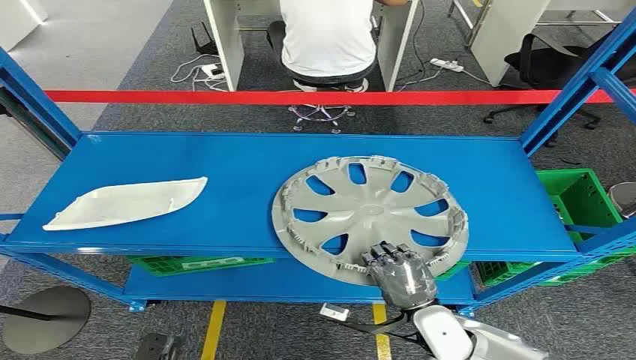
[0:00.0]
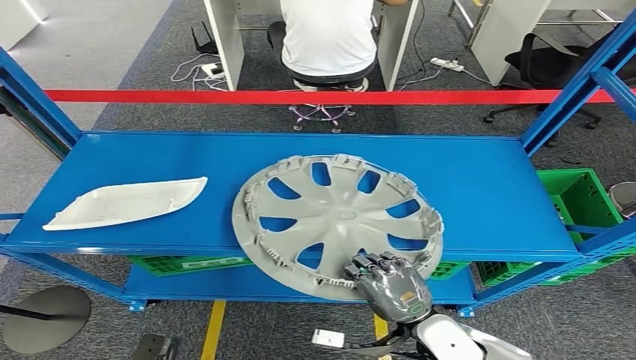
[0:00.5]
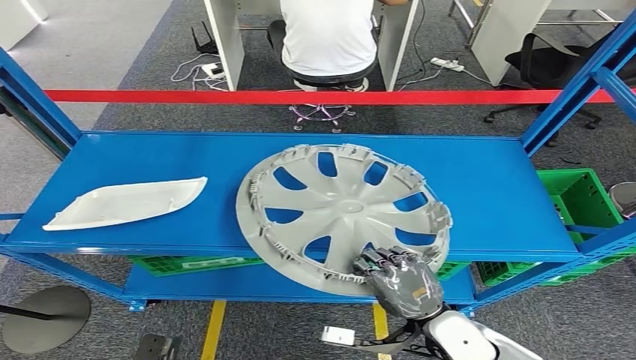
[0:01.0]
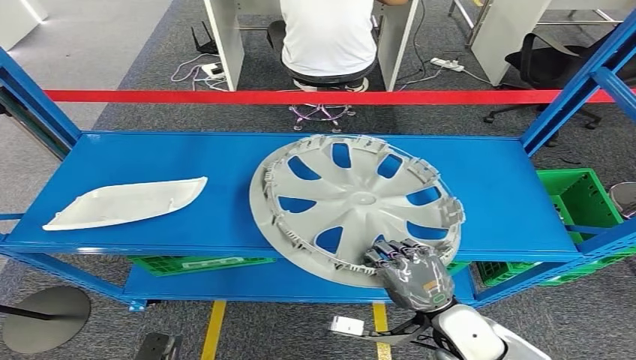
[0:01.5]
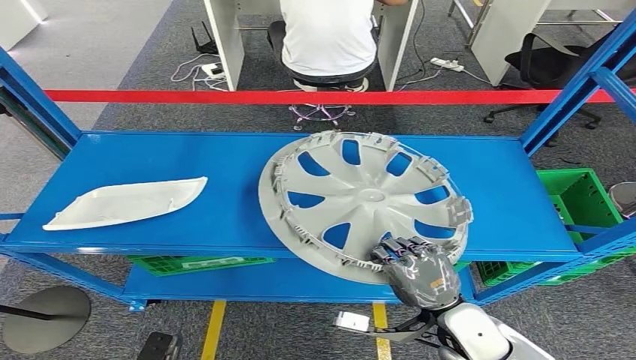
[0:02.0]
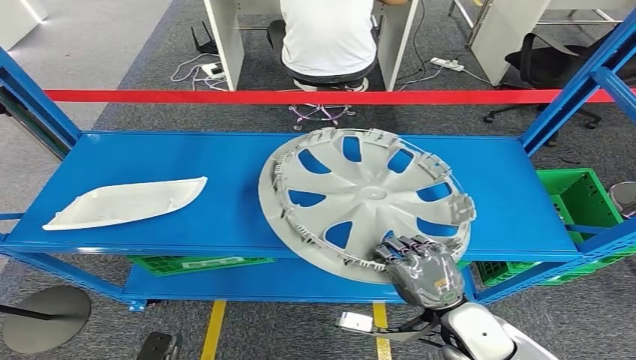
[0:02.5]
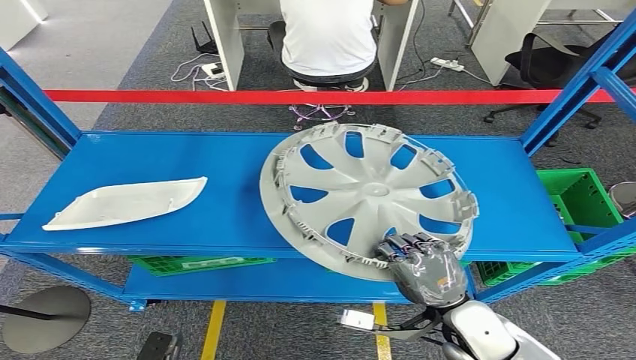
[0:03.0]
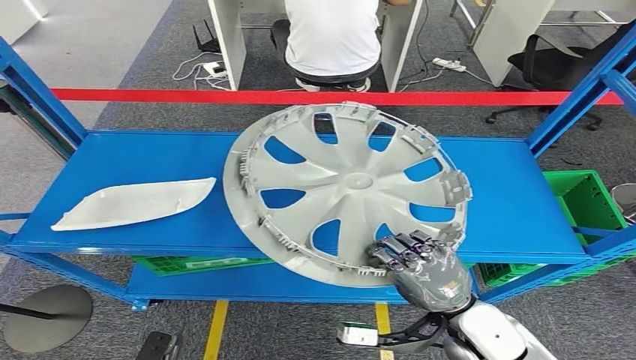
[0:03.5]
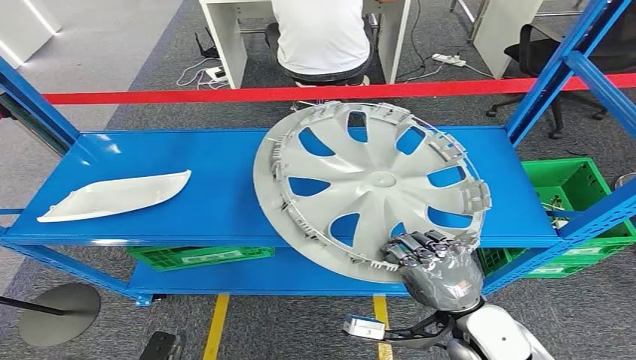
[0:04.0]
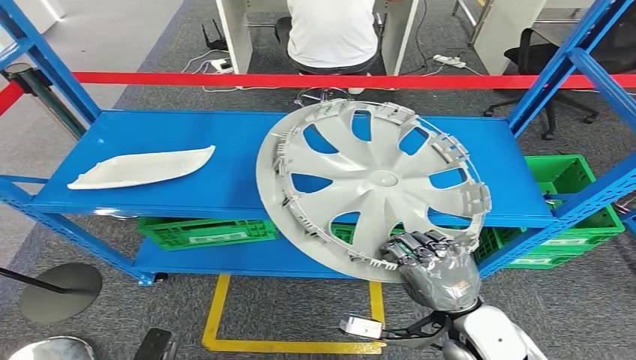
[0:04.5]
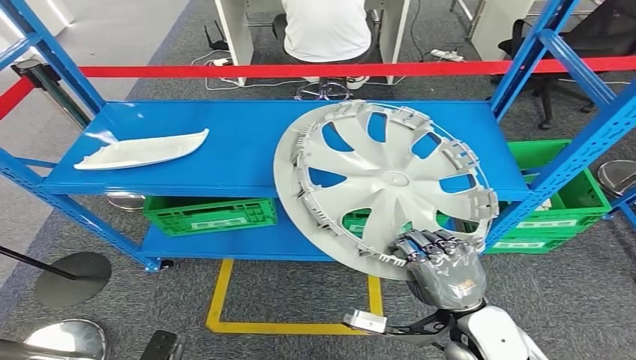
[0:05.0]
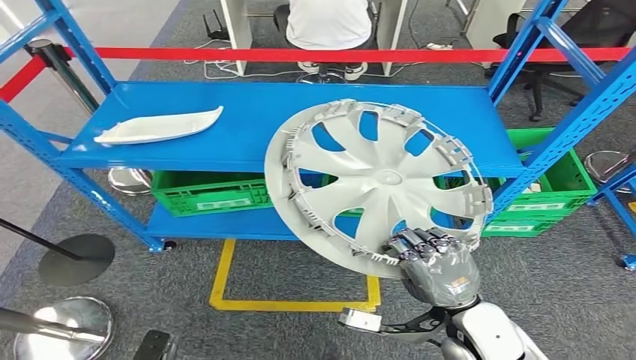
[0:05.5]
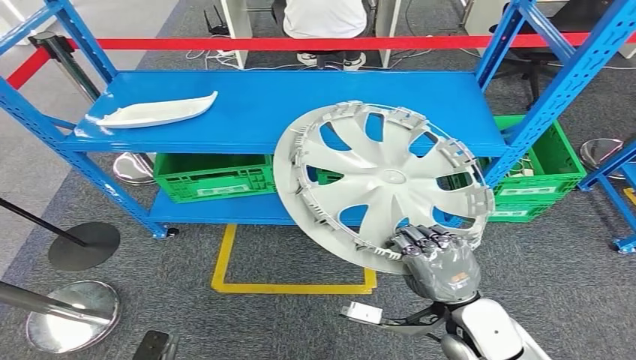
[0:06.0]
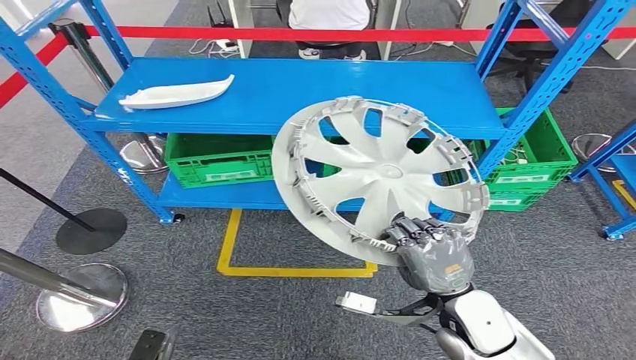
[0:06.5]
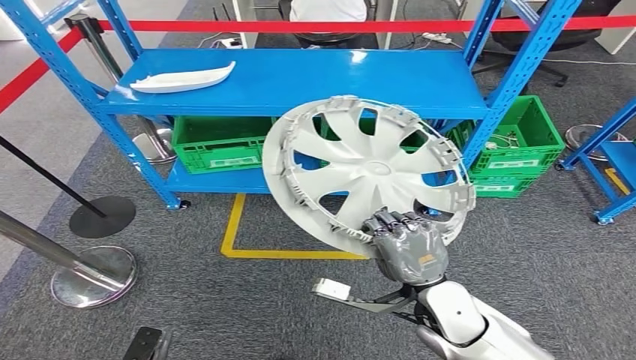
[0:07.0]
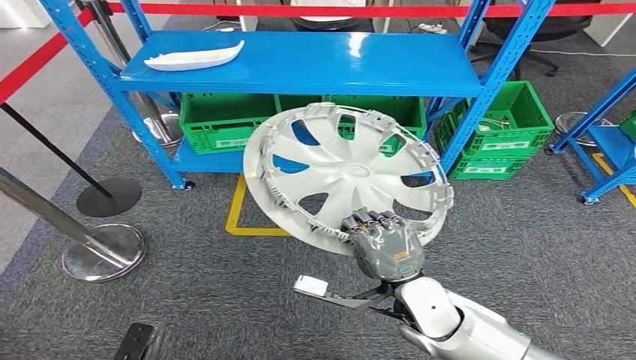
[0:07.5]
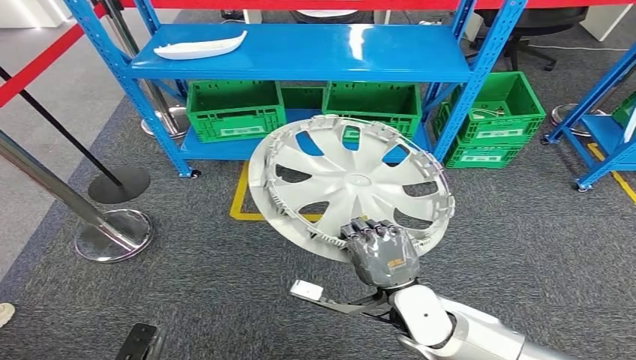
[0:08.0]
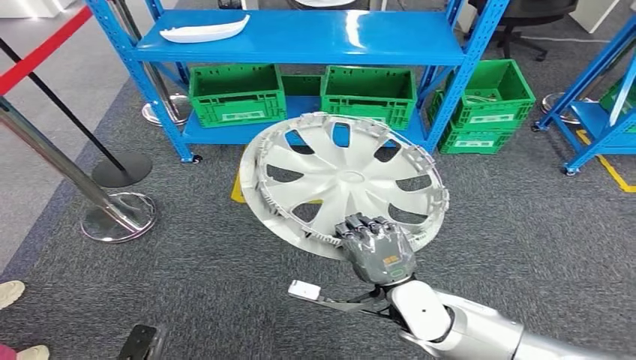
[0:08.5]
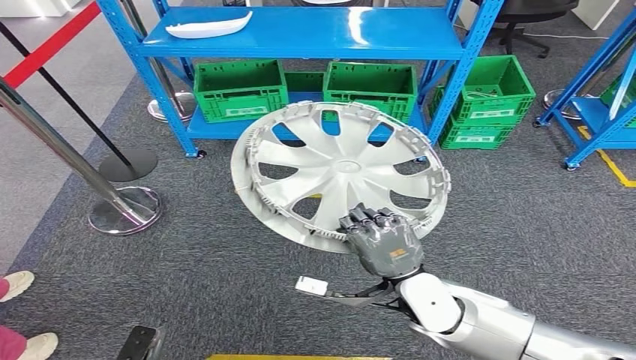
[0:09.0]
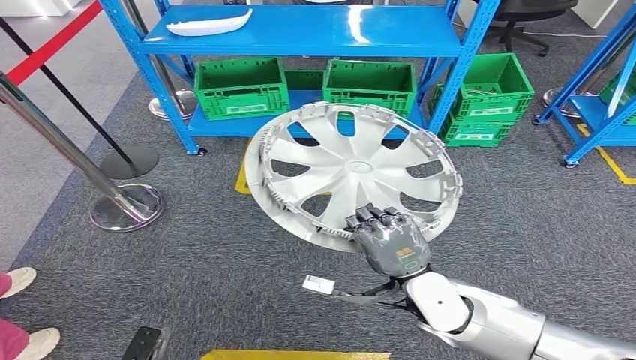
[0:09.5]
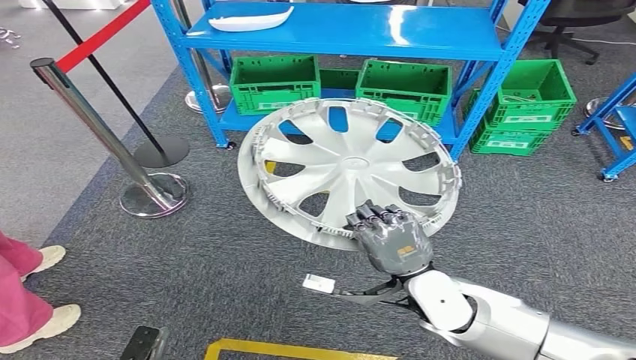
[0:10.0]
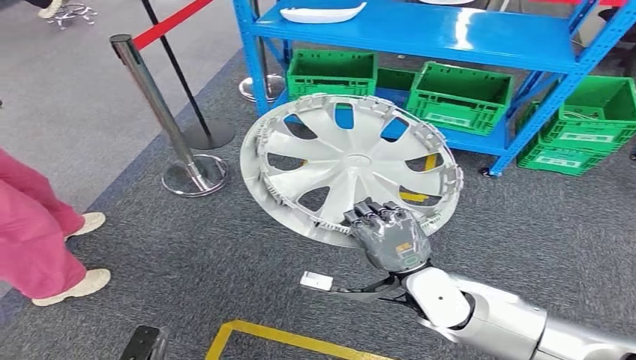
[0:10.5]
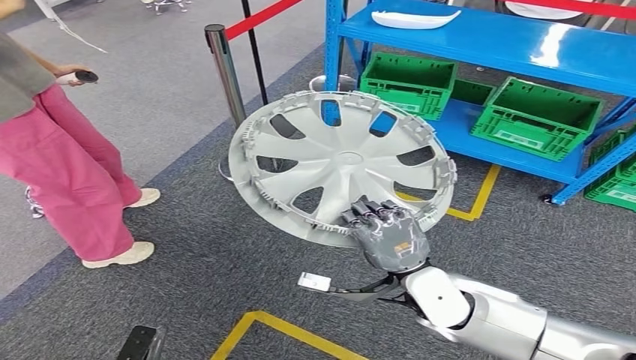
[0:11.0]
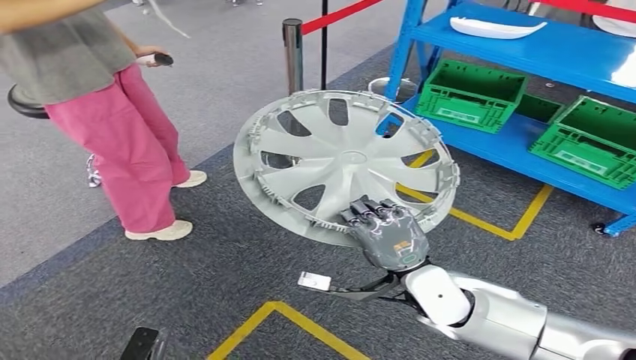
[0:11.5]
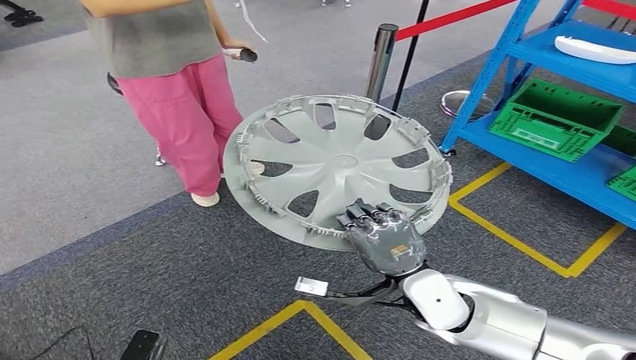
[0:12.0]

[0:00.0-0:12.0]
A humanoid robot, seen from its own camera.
Step, 0:00.0 to 0:05.0: Pick up the small component from the shelf.

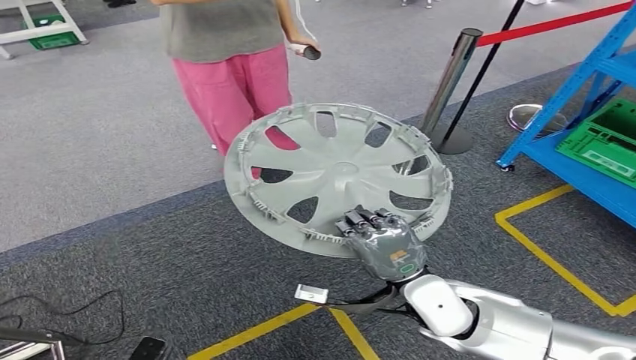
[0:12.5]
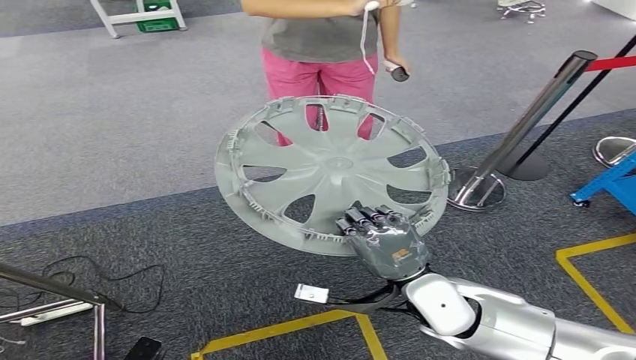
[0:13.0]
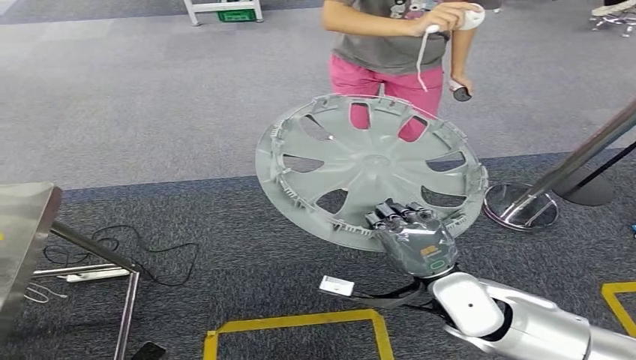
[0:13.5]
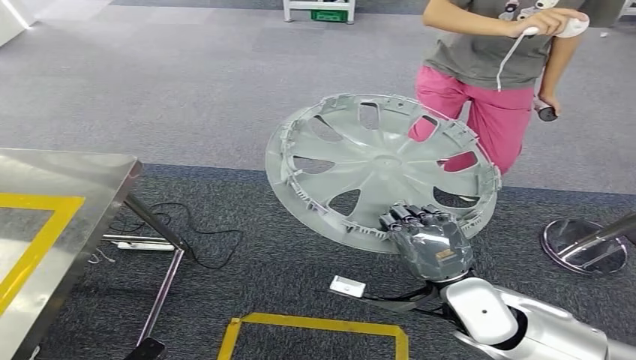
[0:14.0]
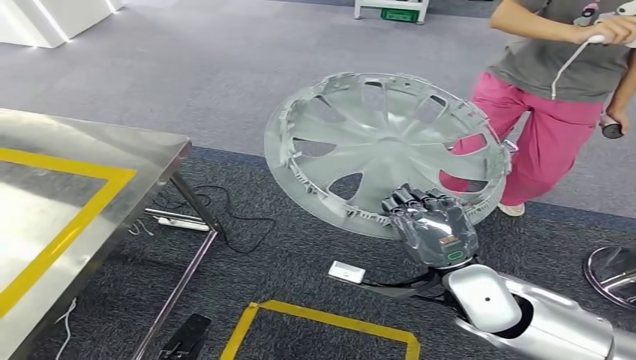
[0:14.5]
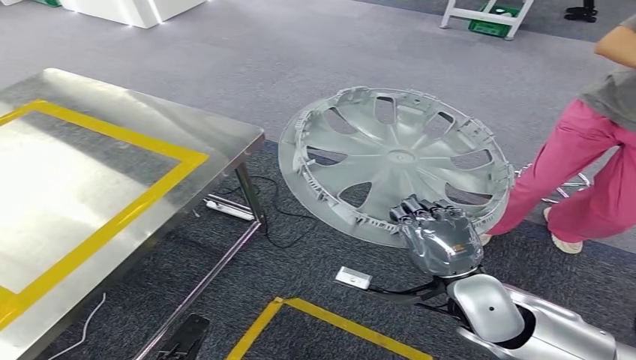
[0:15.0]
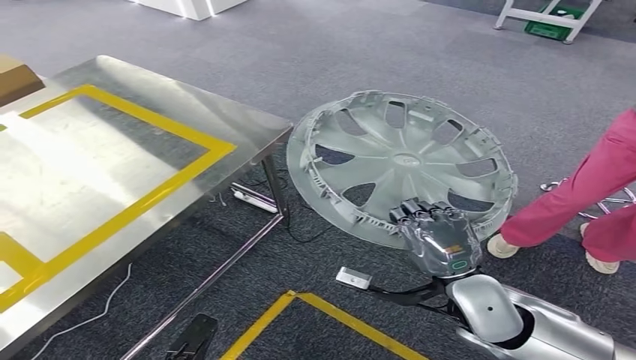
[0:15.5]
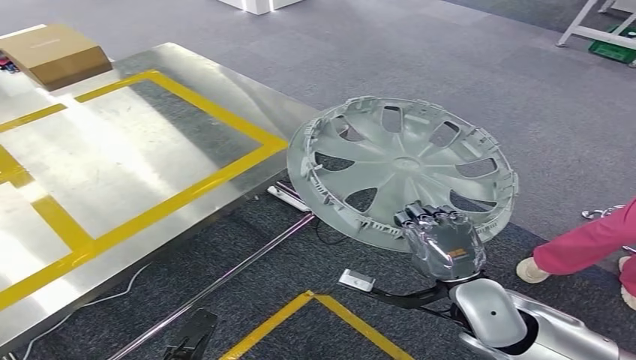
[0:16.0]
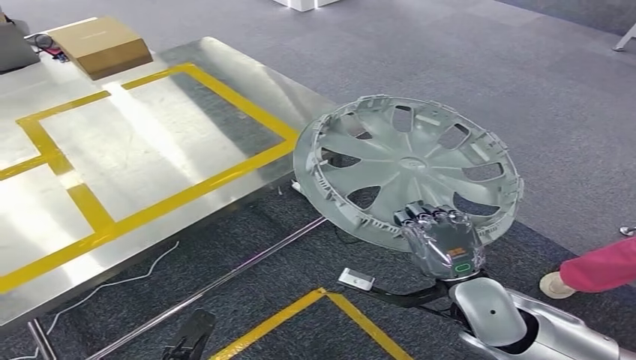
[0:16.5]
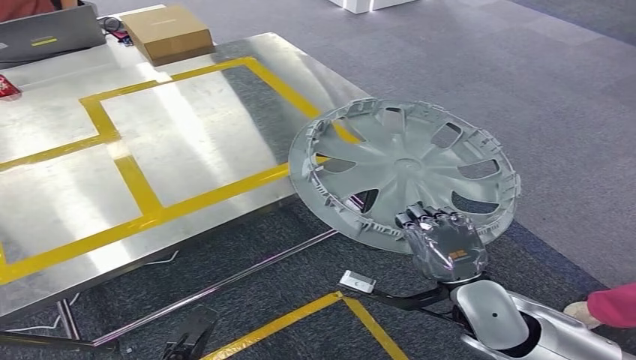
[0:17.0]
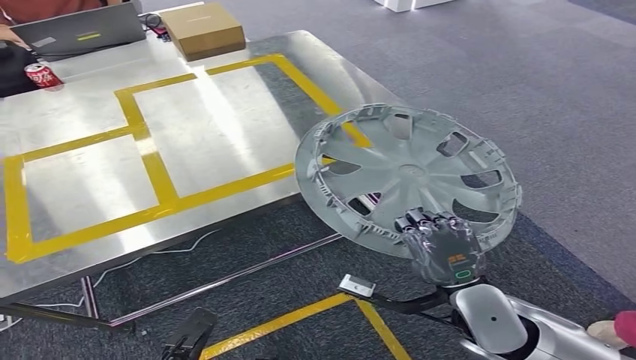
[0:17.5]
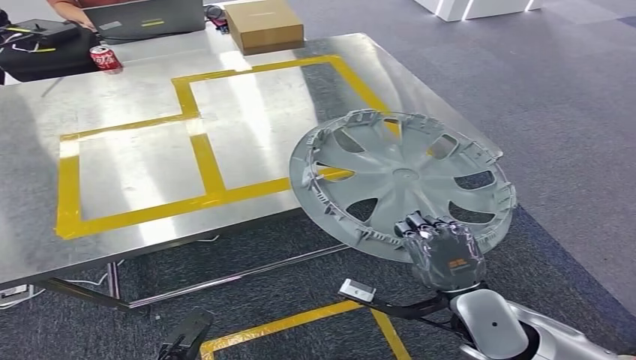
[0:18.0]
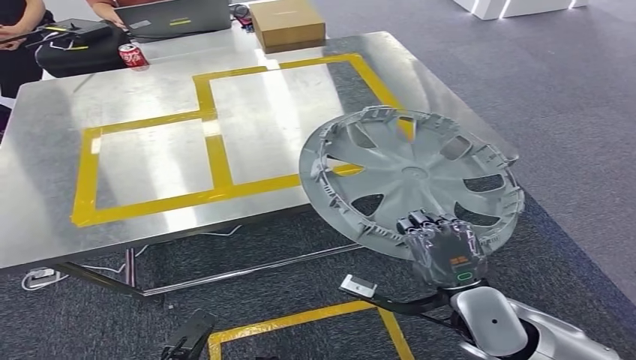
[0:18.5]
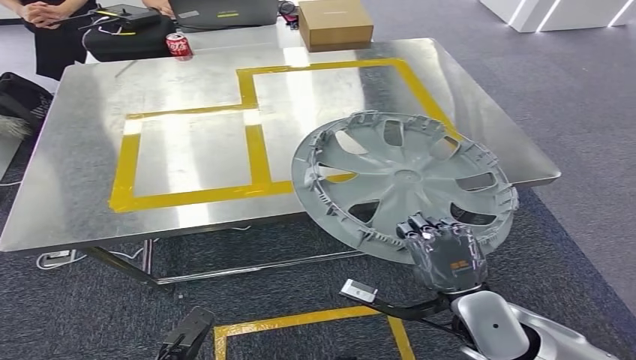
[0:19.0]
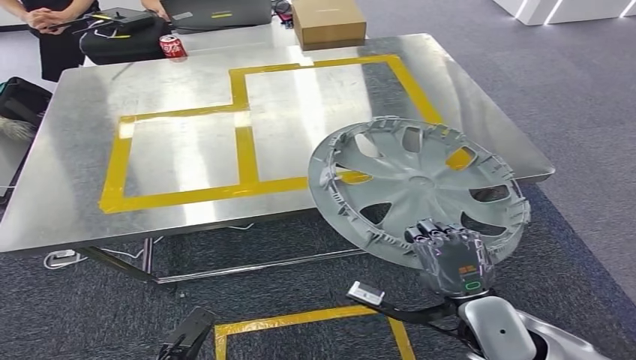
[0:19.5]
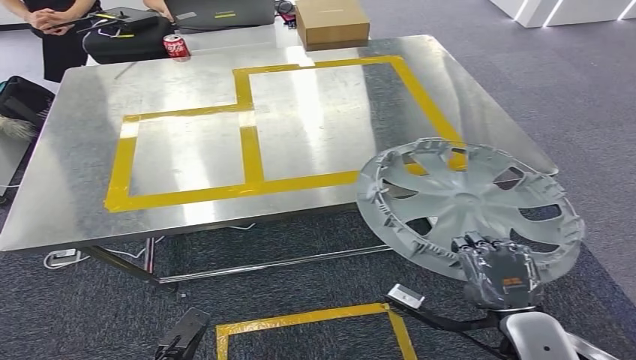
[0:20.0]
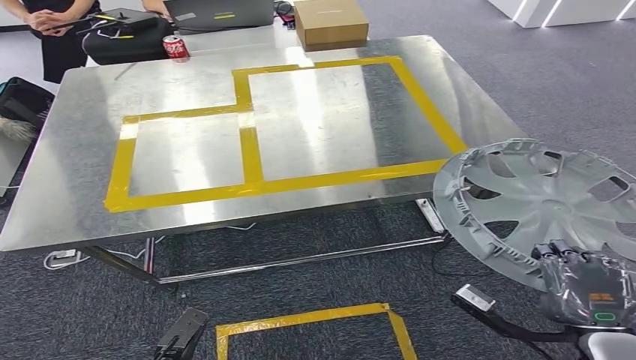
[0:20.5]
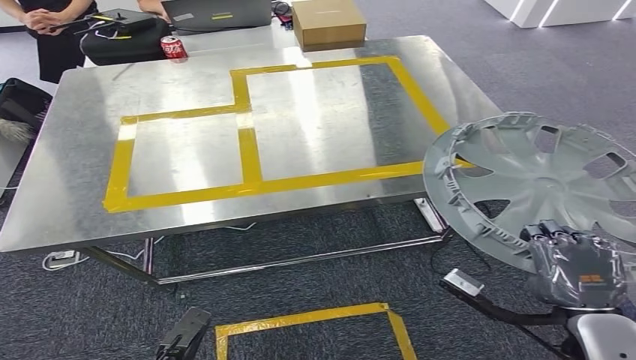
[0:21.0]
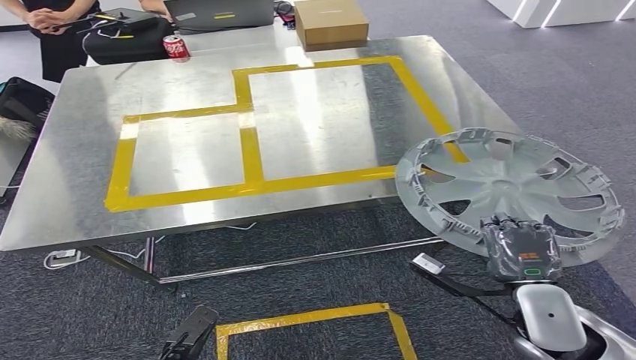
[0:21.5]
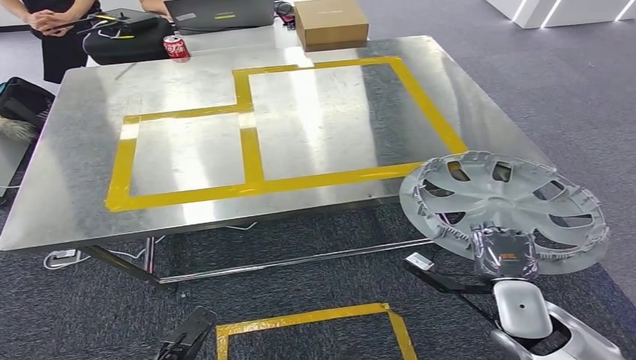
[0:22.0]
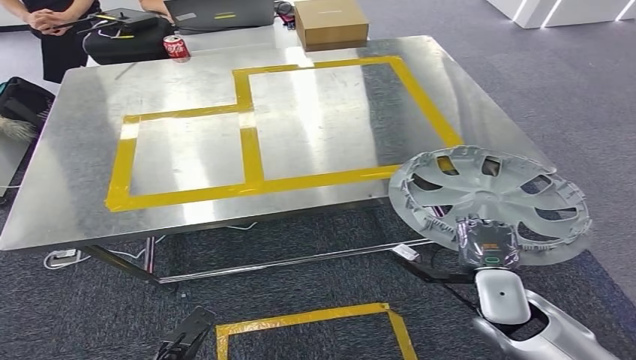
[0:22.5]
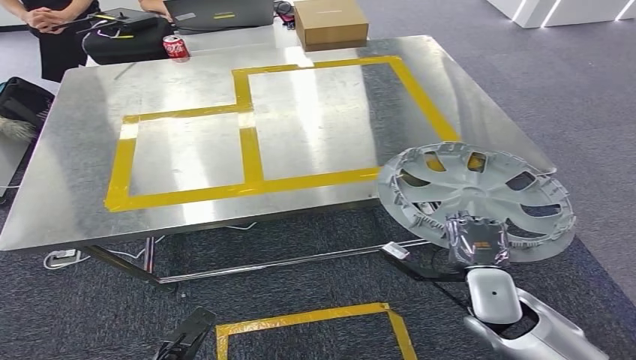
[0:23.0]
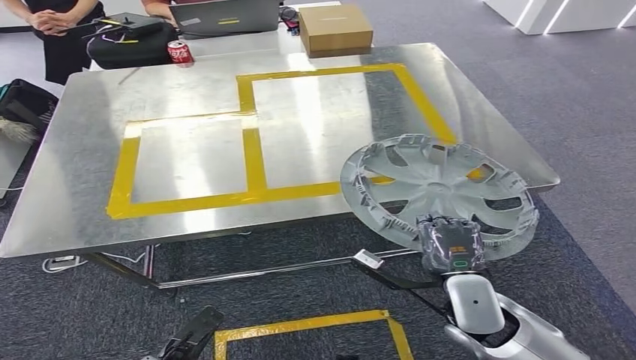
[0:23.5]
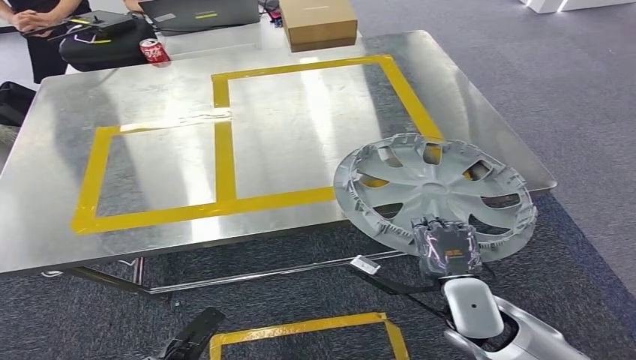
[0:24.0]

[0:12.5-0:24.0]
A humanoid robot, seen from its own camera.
Step, 0:12.5 to 0:23.0: Move the small component to the workbench.
0:20.0 to 0:22.0: The right hand shifts roughly 5 cm forward.
